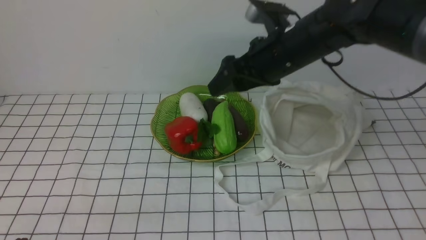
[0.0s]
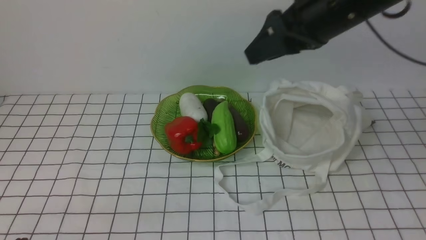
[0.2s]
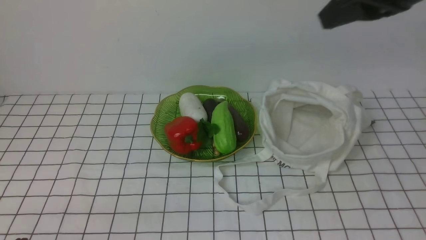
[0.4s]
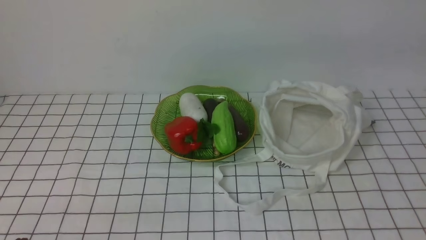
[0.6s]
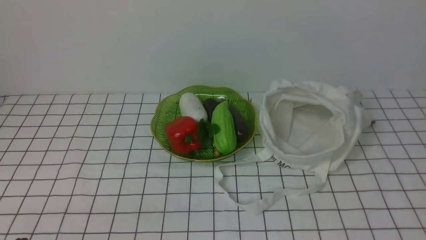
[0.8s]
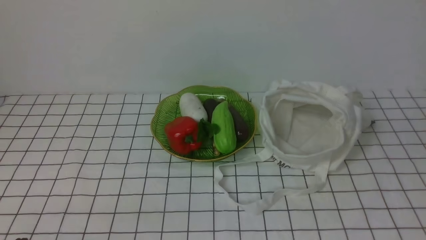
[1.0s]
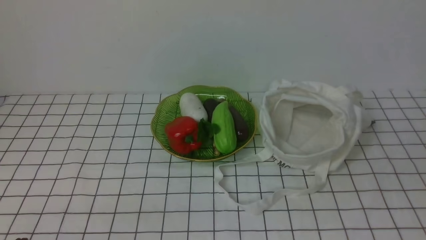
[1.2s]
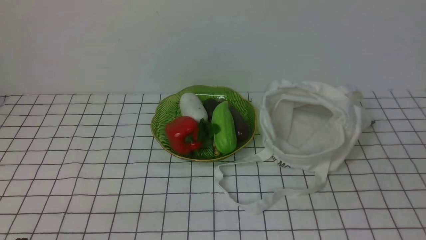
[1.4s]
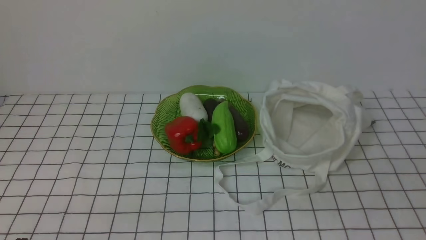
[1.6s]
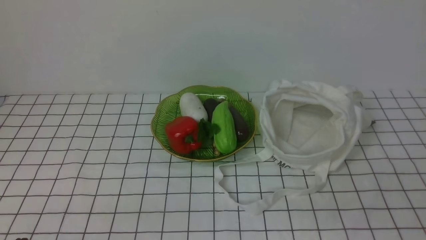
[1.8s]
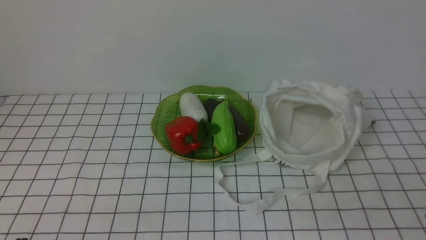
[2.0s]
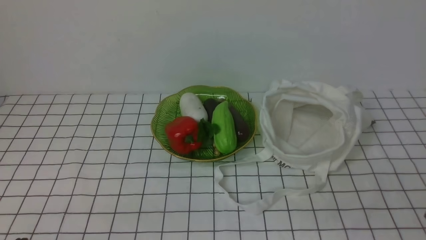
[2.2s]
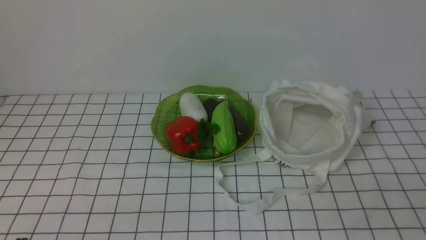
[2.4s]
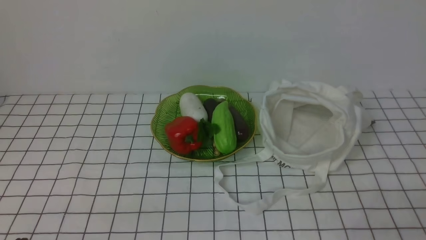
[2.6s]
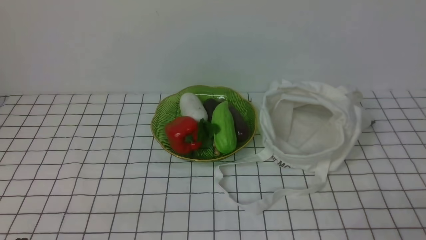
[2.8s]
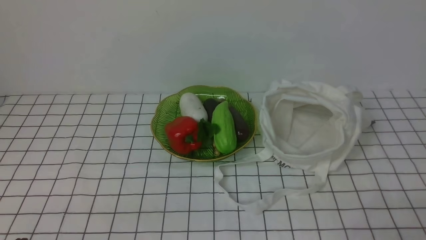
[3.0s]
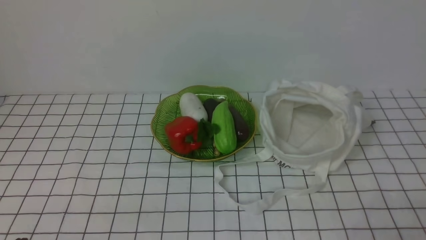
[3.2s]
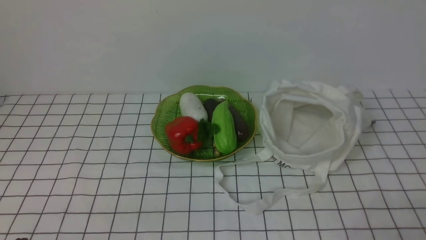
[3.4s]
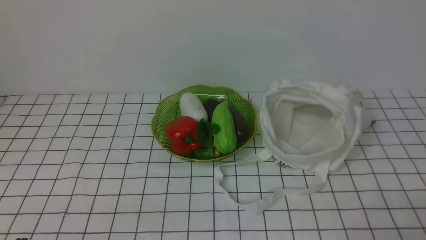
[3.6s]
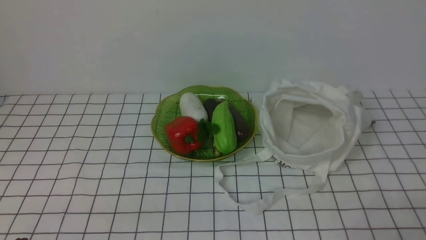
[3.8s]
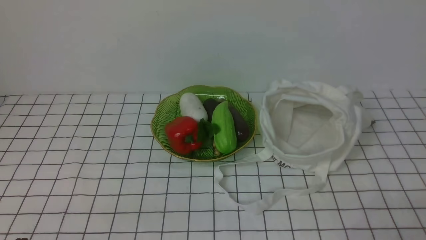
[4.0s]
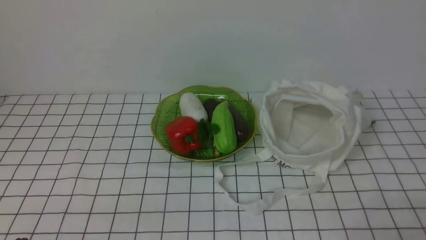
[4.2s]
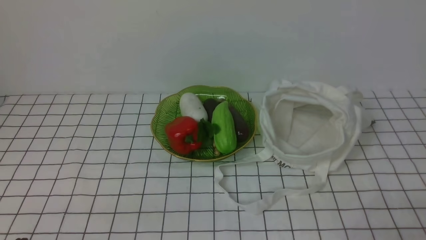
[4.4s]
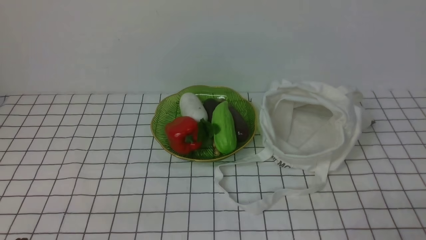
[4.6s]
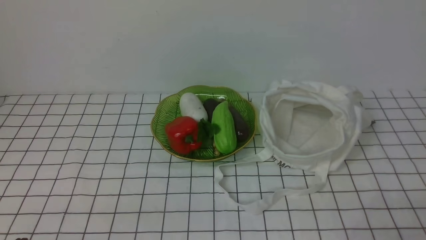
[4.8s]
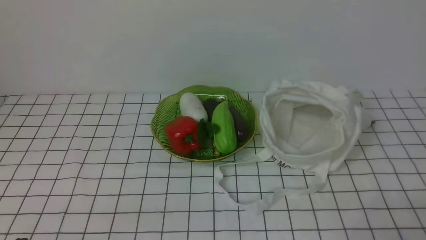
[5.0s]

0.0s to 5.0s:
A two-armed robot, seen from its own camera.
Task of the whole recording: take vegetables from bag on white checkered tablecloth place on plate.
0.0s to 1.6s: The right gripper moves backward and to the right, approximately 35 cm, and closes its fingers.
3.4s to 5.0s: Neither gripper changes place.

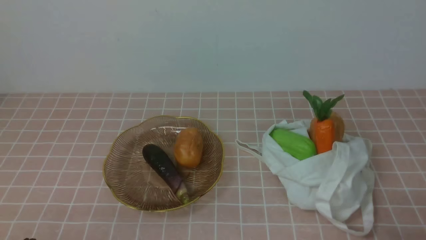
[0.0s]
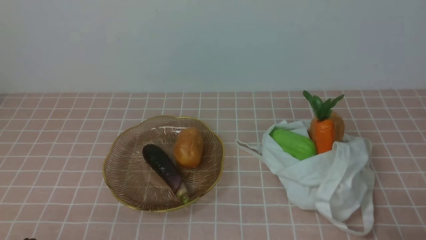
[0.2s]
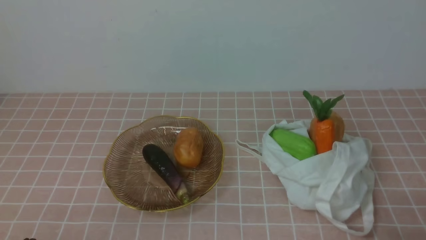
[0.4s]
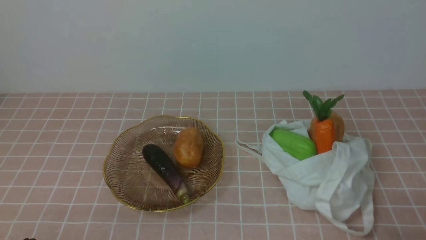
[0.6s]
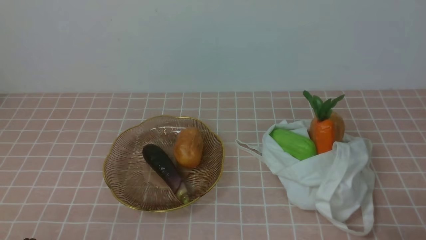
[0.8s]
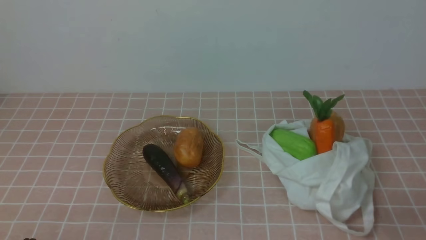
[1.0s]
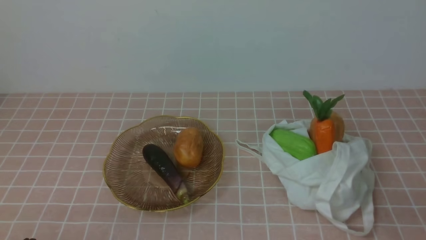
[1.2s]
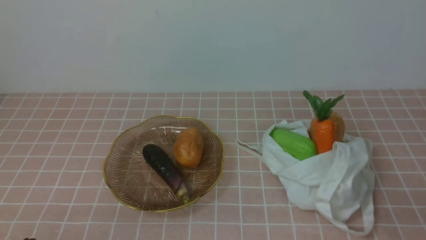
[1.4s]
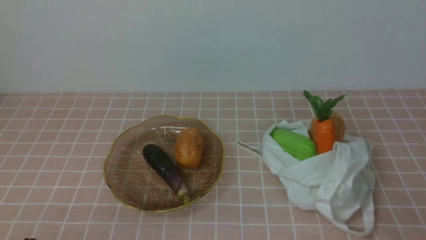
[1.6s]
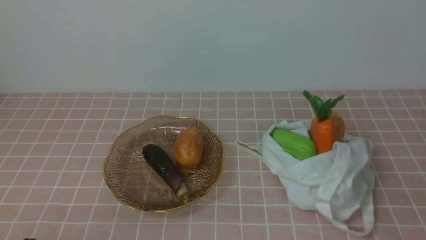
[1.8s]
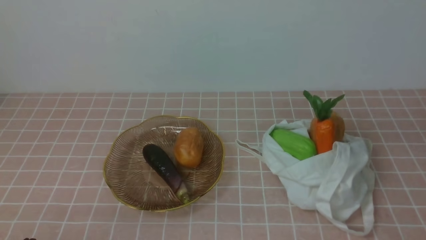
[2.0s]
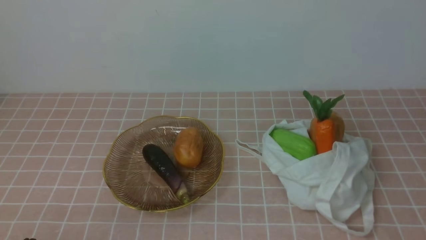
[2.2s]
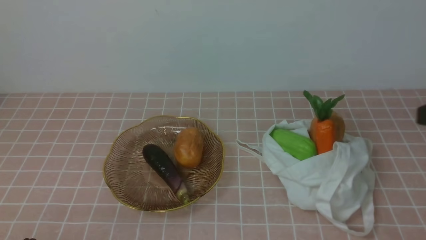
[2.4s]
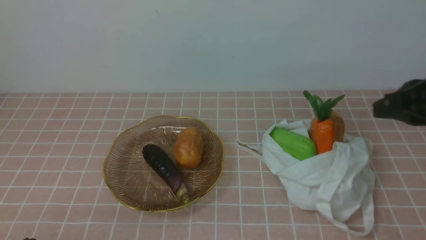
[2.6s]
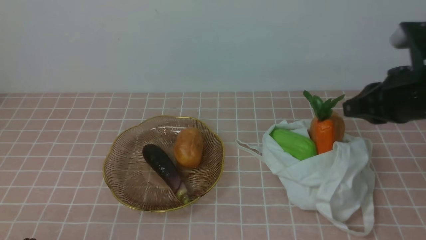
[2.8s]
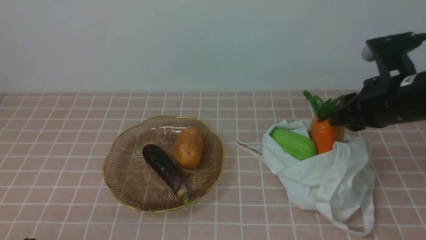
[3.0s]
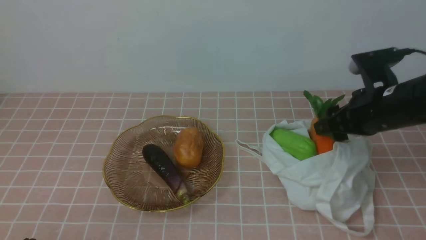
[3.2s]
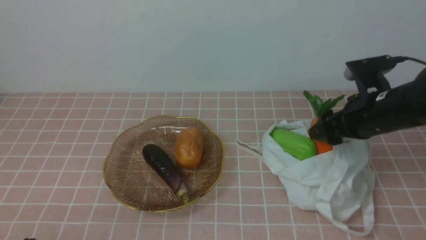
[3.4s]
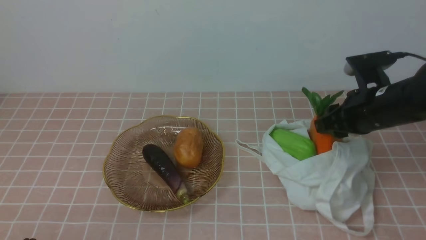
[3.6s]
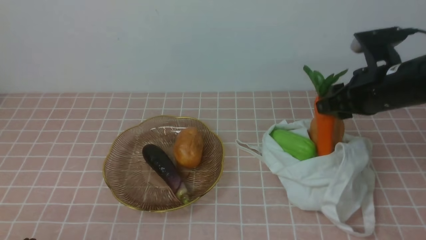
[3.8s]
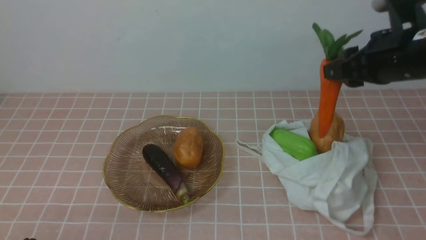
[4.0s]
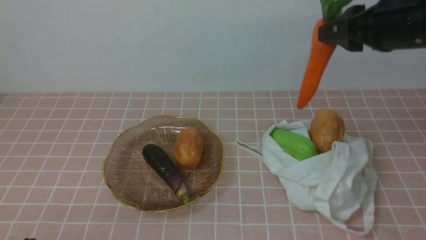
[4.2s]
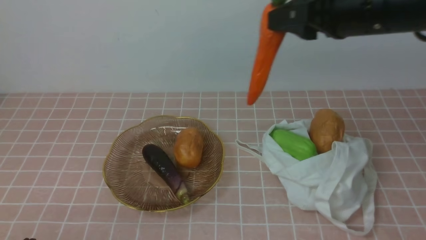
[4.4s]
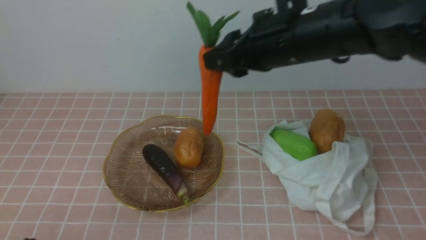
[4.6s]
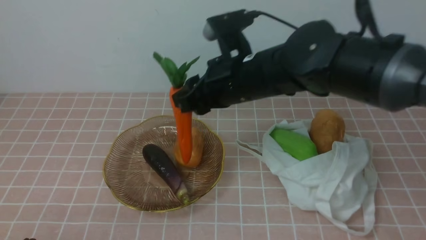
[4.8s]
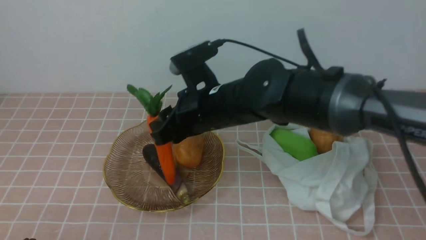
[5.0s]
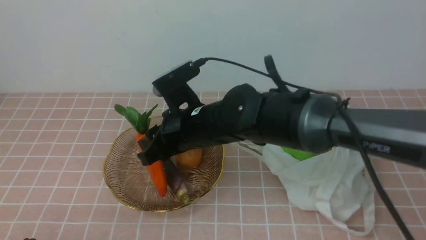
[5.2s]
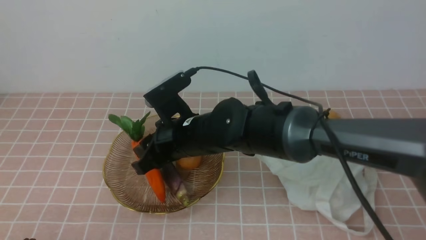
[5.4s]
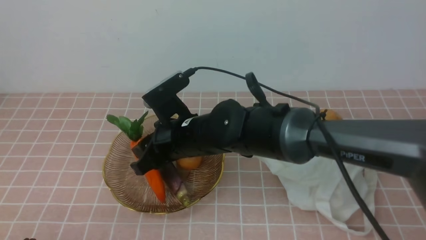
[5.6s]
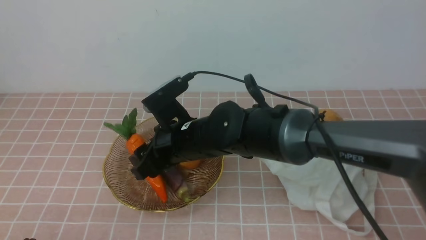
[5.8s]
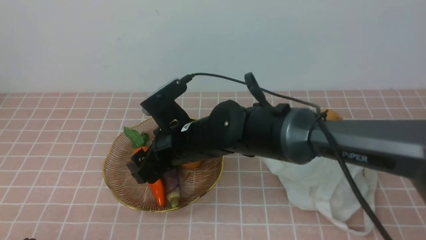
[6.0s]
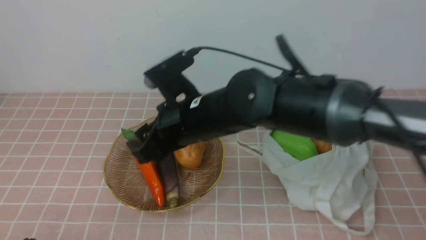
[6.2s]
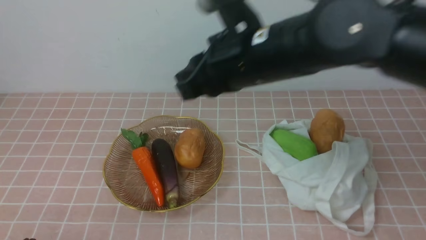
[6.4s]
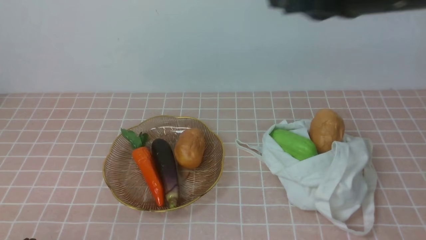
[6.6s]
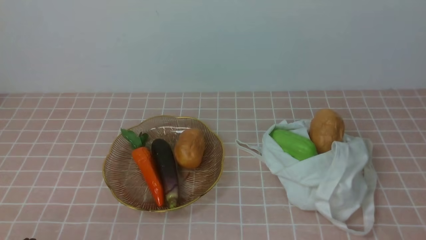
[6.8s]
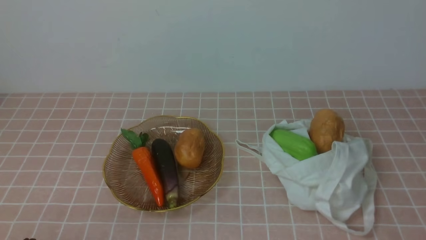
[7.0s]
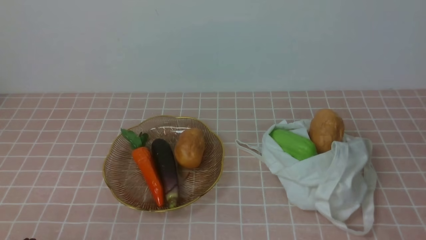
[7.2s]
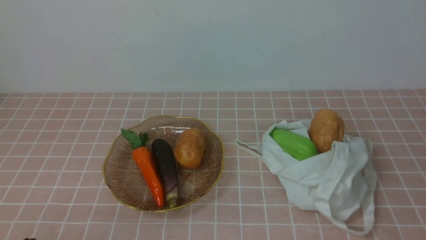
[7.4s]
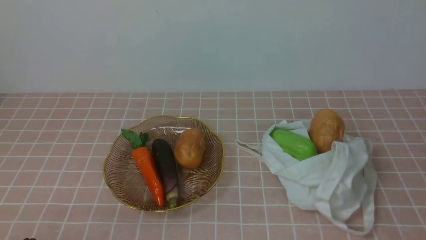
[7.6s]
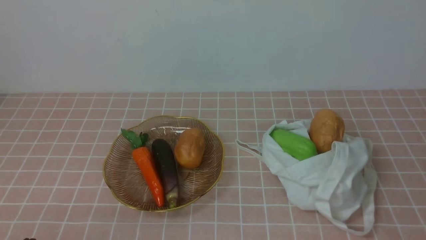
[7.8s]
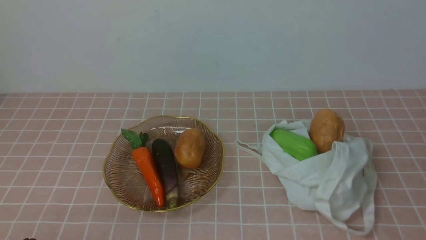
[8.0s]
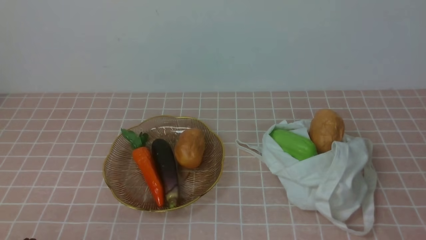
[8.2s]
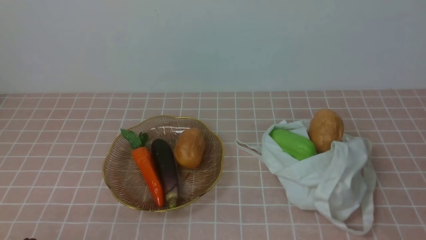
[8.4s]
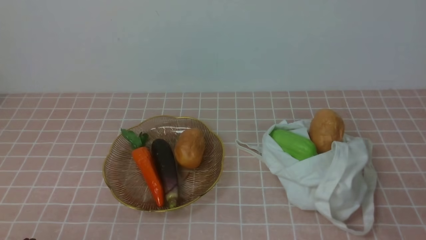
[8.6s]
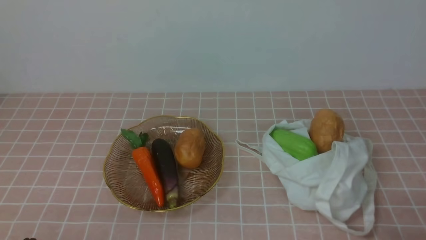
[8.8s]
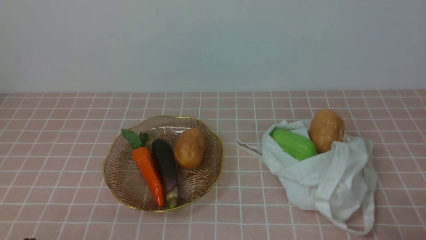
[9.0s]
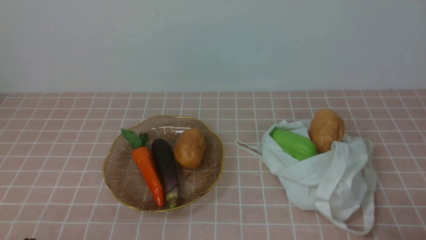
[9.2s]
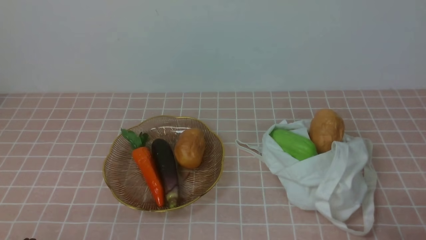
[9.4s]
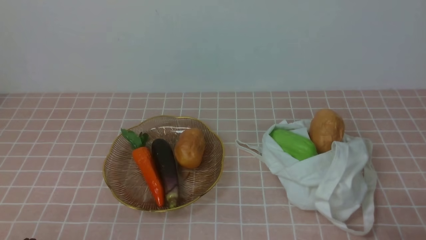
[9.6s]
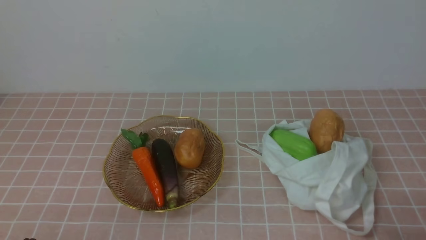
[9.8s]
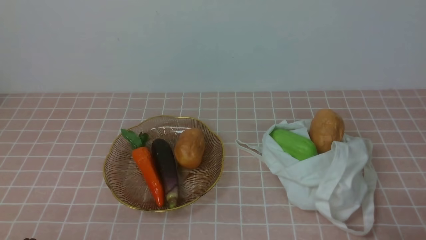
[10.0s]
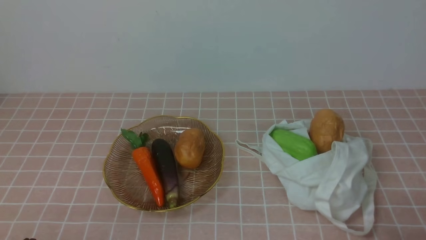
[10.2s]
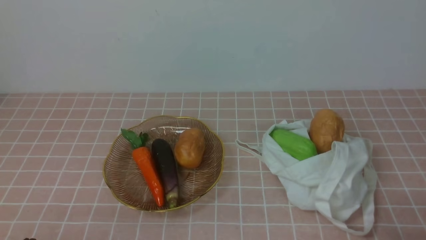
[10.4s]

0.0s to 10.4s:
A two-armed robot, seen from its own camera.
Task of the whole recording: take vegetables from bag on pink coffee tablecloth place on plate.
Step, 0.0s to 3.4s: Grasp the carrot with right gripper.
Step, 3.6s to 6.2s: Place the carrot on the plate with right gripper.
1.4s to 3.0s: The right gripper travels forward by some 25 cm, and opens up.
3.0s to 4.4s: The right gripper heads upward and to the left, covering some 15 cm.
4.4s to 6.0s: The right gripper moves to the left and downward, about 25 cm, and opens its fingers.
6.0s to 7.4s: The right gripper shifts about 50 cm to the right and backward, and closes up.
9.0s to 10.4s: The two grippers keep their place.

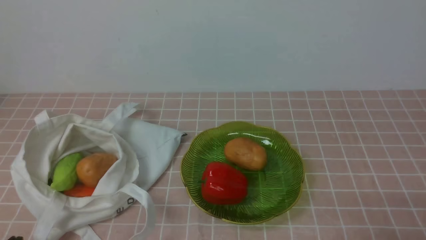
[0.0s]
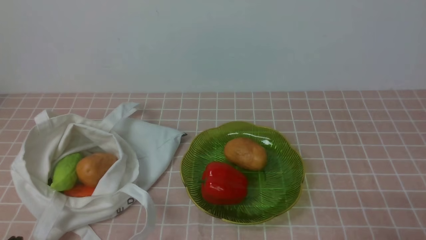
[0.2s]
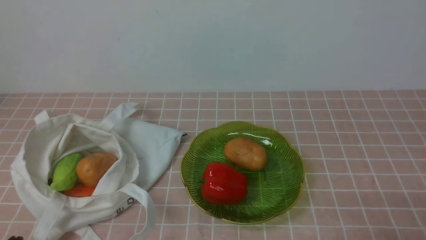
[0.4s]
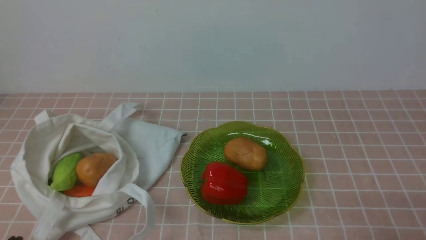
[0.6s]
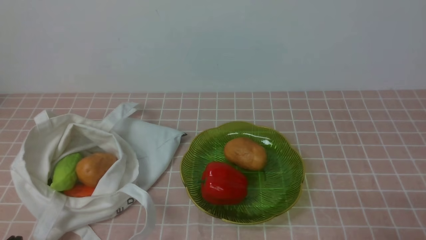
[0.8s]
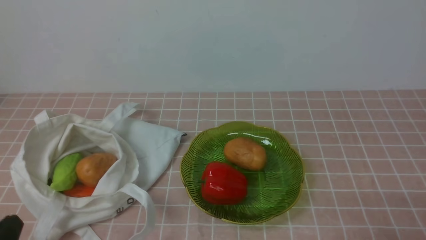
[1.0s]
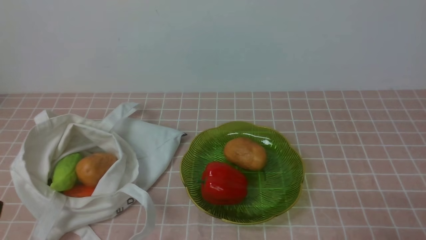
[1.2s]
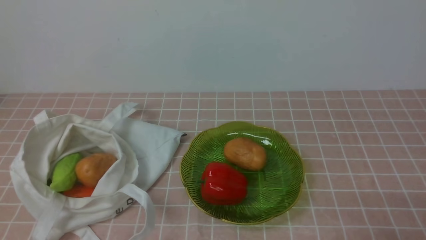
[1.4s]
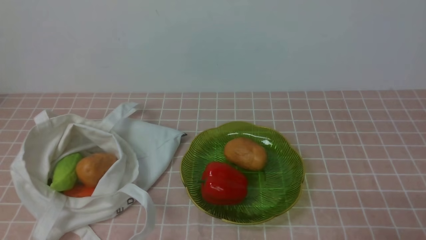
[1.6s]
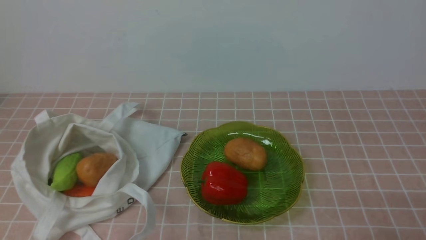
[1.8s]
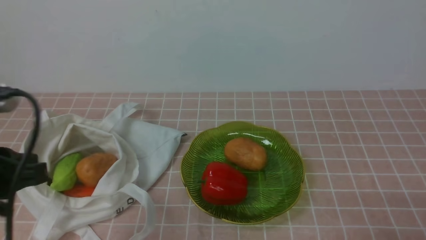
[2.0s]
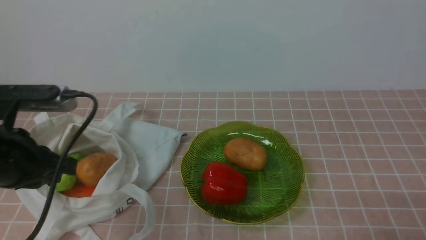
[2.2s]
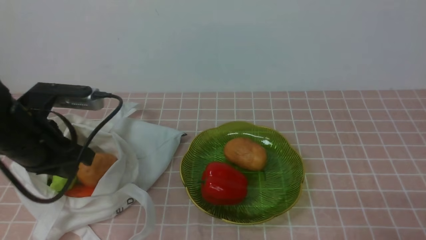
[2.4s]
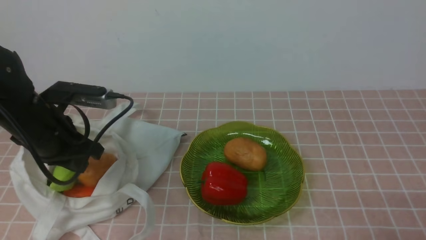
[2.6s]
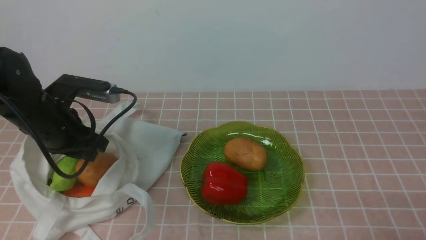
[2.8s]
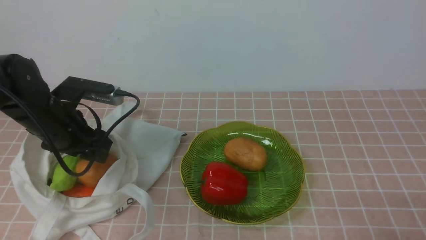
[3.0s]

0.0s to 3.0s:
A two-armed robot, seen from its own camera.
Task of the whole recording: take vegetables from bag on pink coffee tablecloth place on plate.
1.6s to 3.0s: The left gripper is displaced forward by some 25 cm, and opens up.
